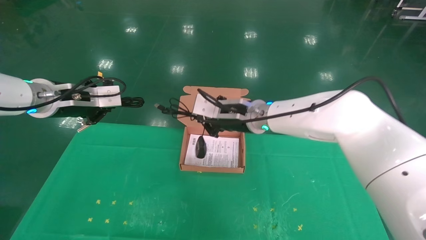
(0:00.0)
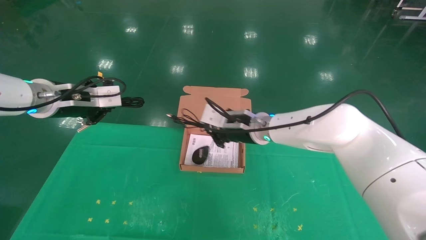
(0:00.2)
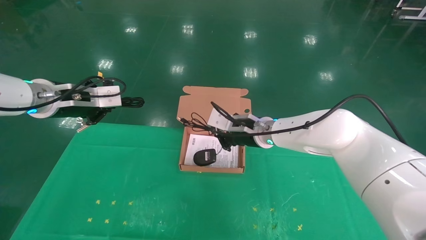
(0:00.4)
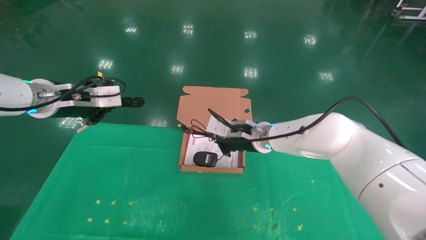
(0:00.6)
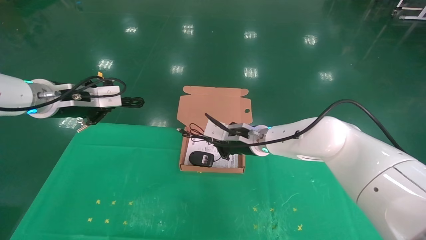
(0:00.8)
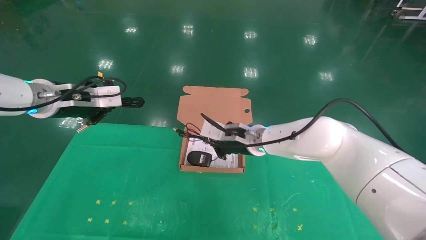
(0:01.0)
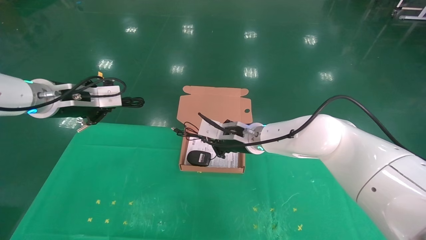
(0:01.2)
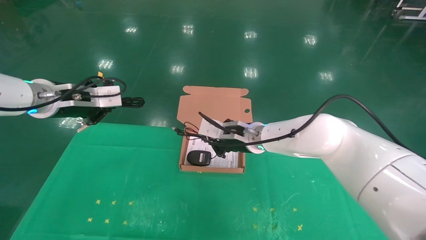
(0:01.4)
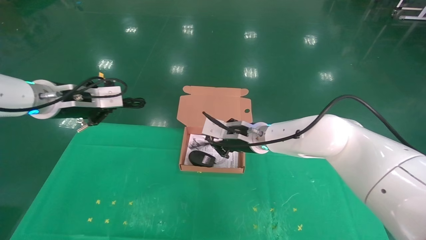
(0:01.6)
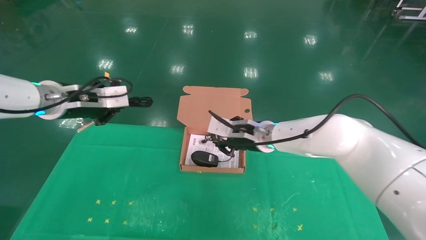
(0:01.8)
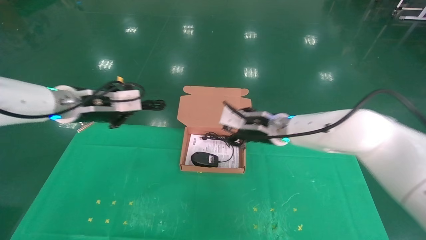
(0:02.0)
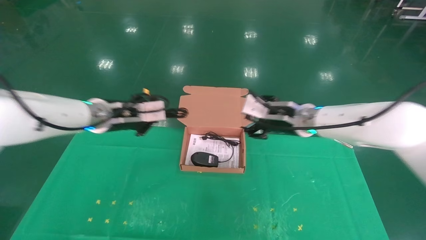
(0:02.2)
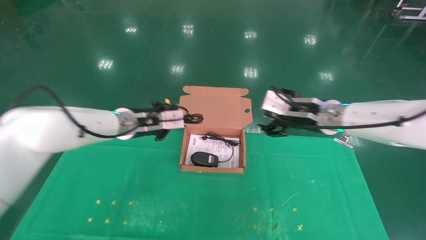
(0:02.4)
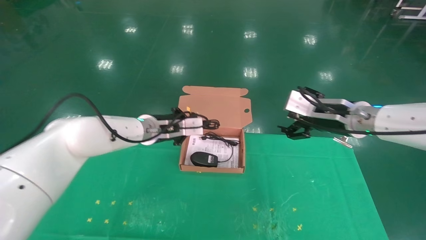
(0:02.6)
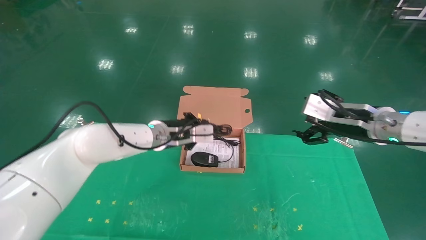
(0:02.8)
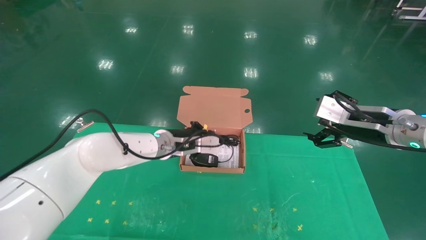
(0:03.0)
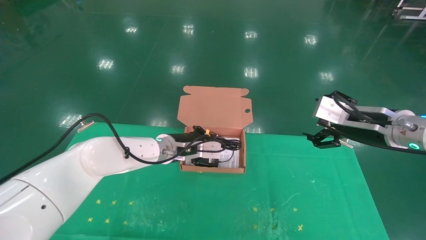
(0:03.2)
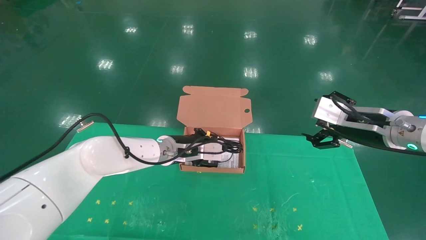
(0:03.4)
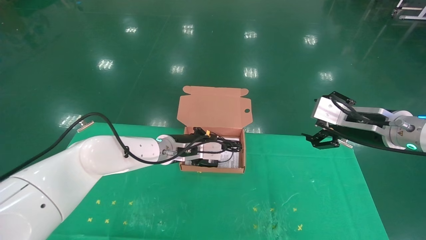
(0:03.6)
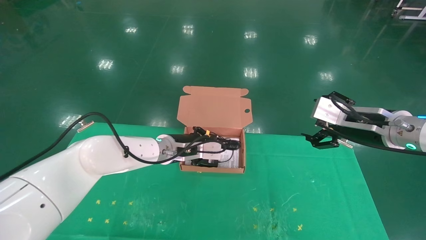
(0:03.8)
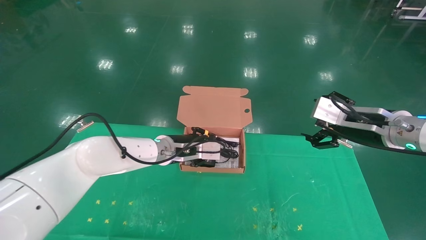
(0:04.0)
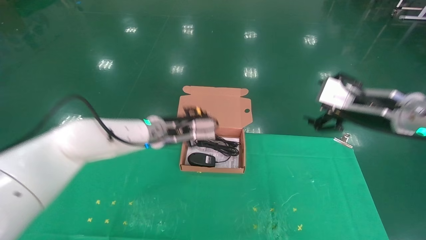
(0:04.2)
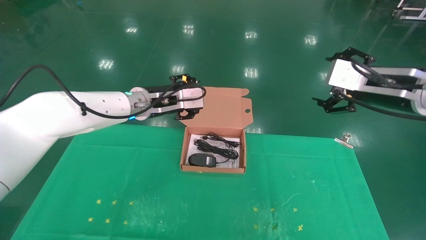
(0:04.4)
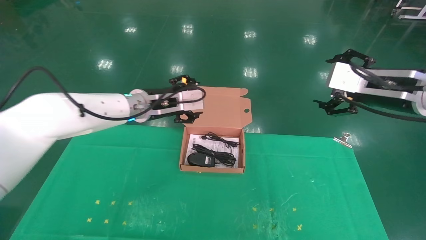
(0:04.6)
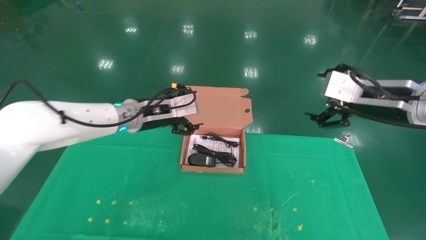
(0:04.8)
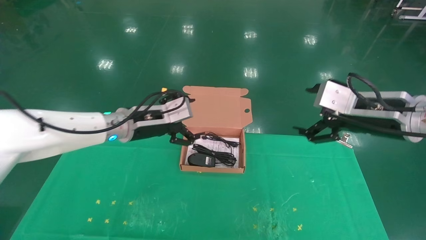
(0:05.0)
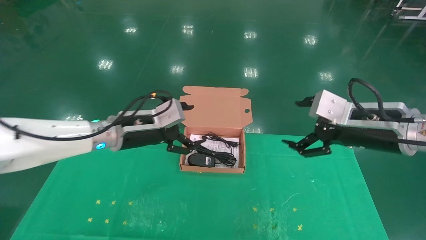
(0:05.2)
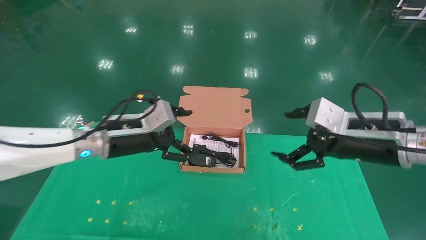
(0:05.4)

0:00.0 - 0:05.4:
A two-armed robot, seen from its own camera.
Task of the whole recording: grasp data cable left put into box grasp mouse right put into box.
Step, 0:00.0 - 0:04.0: Place the mouse and power cord into the box.
0:00.0 - 0:01.4: There are only small adjustments of the grippers.
0:01.4 - 0:02.8: The right gripper travels to the right by approximately 20 cm, and opens up. Meanwhile the left gripper moves to the right, downward and forward, about 25 cm.
0:02.8 - 0:04.0: There are only small adjustments of the grippers.
0:04.0 - 0:05.4: The right gripper ends up about 5 cm from where it was. The left gripper is displaced backward and to the left by approximately 10 cm, and opens.
